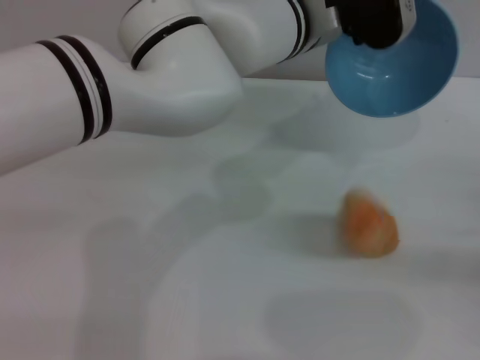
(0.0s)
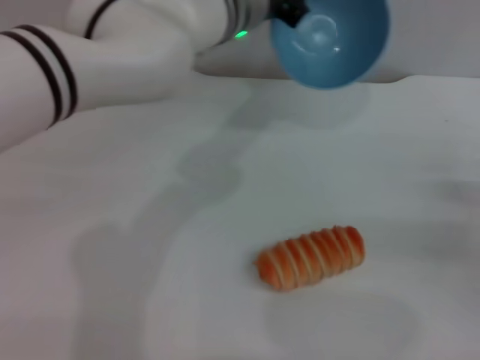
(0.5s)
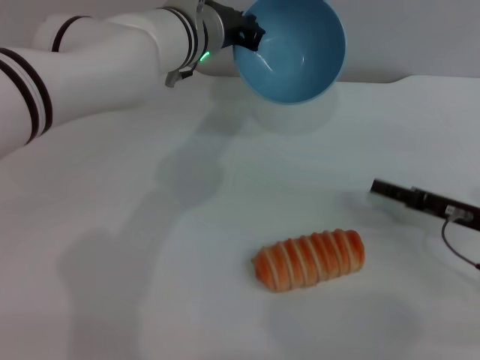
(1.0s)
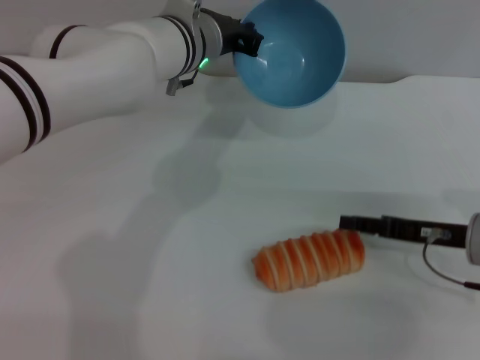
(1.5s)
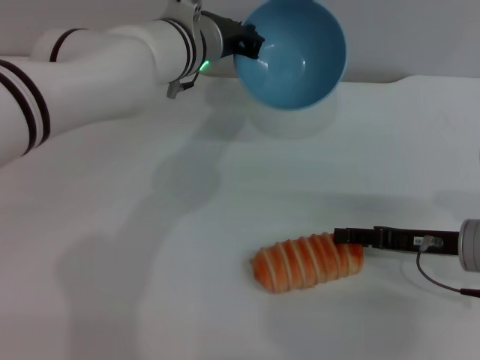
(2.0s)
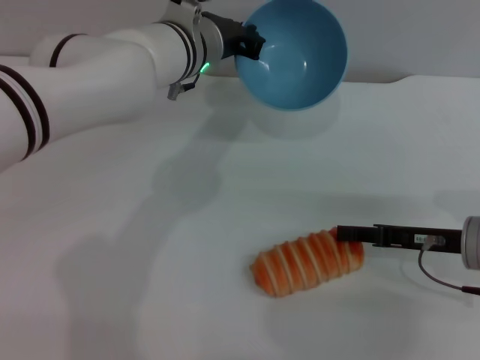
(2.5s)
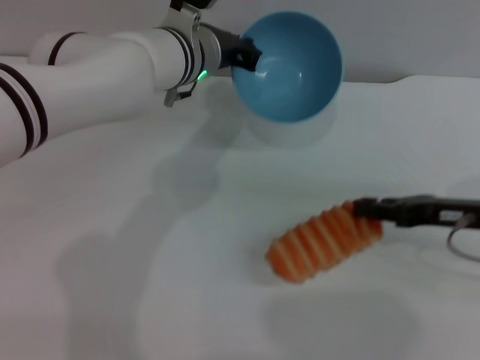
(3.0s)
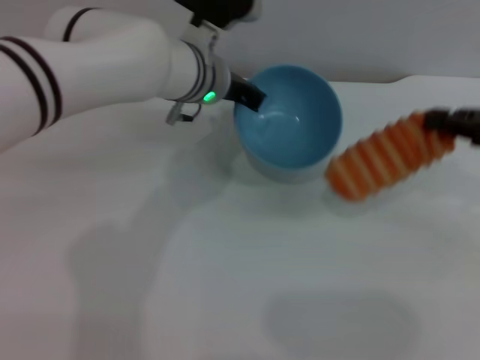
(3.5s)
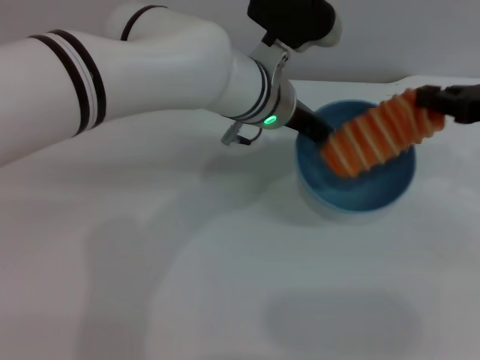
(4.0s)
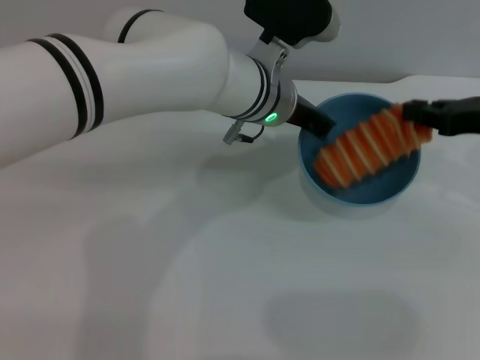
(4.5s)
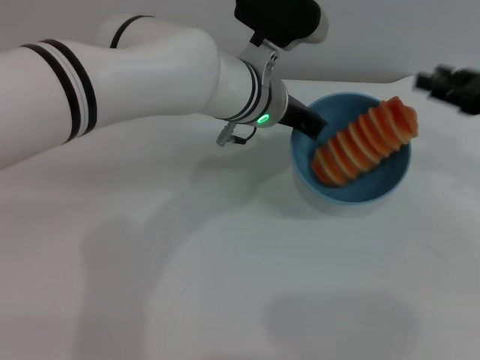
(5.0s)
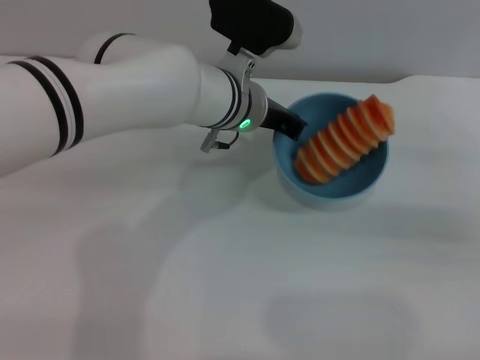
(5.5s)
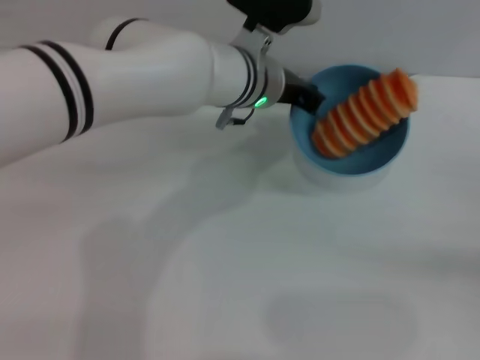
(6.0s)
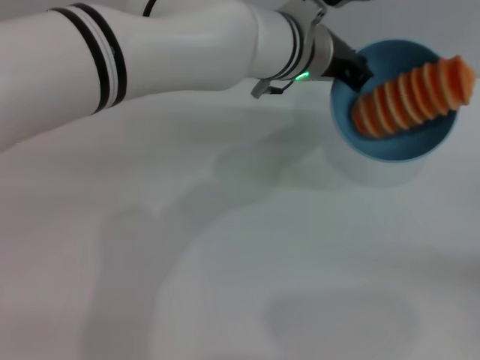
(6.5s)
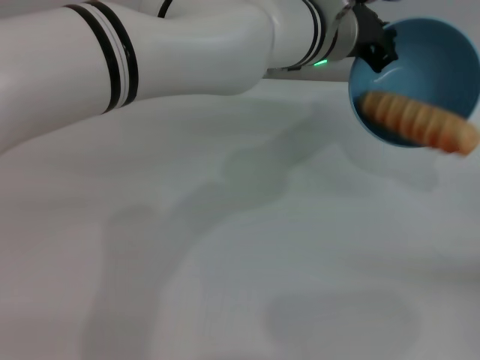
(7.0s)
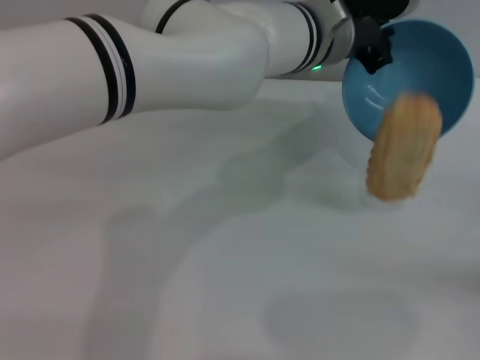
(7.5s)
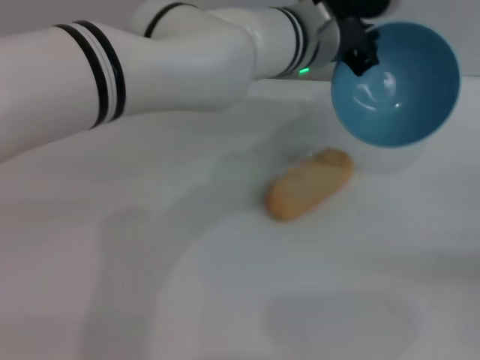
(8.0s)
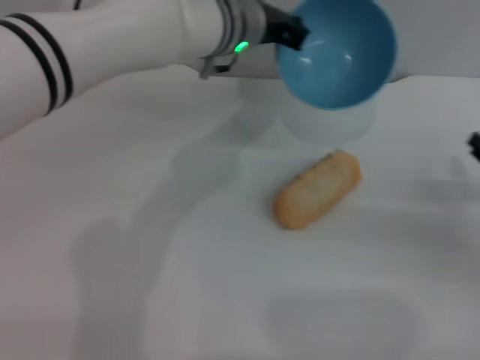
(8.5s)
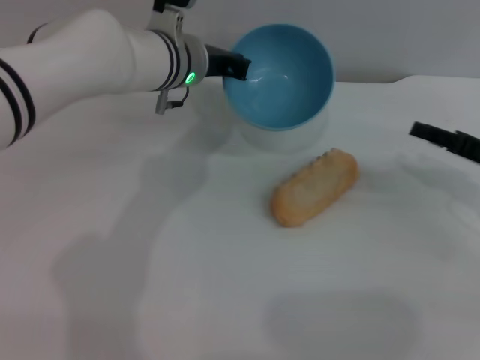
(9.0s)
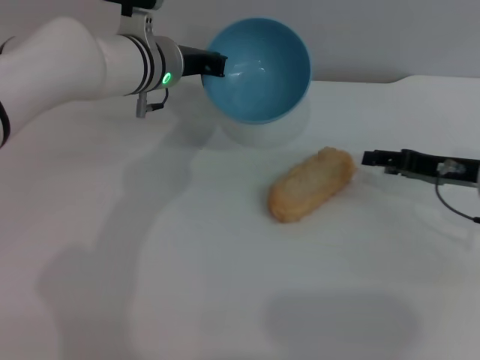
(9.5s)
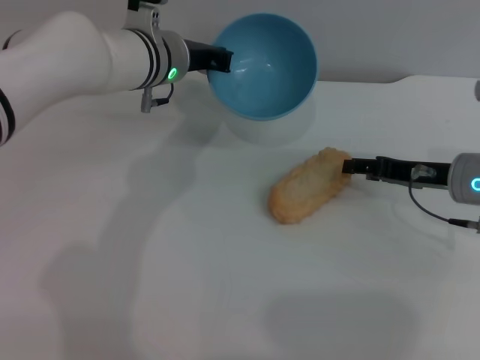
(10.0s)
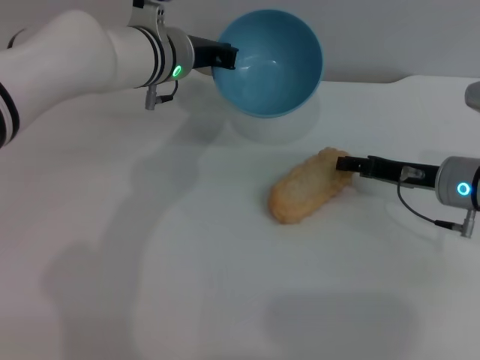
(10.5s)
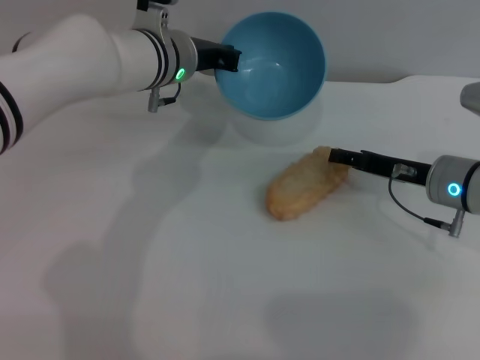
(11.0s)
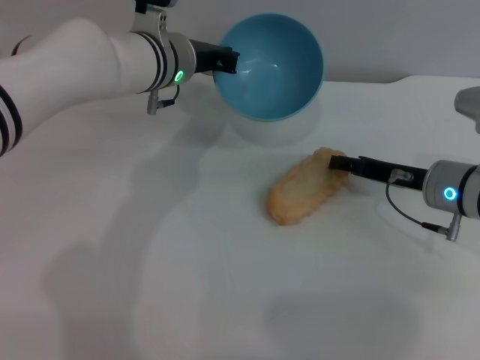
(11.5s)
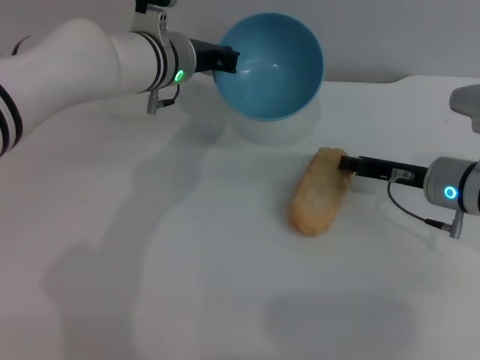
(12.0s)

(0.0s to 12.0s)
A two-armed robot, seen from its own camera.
Task of the whole recording: put the bread into the blue bowl and pour it out repeatedly.
Step, 0.5s - 3.5s: Pick up the bread with the right gripper.
Step, 4.0s - 5.0s: Place the bread into the bowl.
Step, 5.5s - 7.5s: Pour the bread out of the bowl.
0.0s - 2.0s: The left gripper shifts about 10 cm to the left and downward; the right gripper shifts about 15 cm to the left.
2.0s - 4.0s: The left gripper is displaced to the right by some 5 cm. Meanwhile the right gripper moves upward, forward and to the right, some 15 cm, and closes its fingers.
4.0s - 6.0s: The right gripper is displaced downward, backward and to the right by about 20 cm, and opens up.
6.0s - 8.0s: The left gripper shifts by about 5 cm.
8.0s - 10.0s: The left gripper is displaced to the left by about 15 cm, while the right gripper travels to the left and forward by some 15 cm.
10.0s - 12.0s: The grippers move only a little.

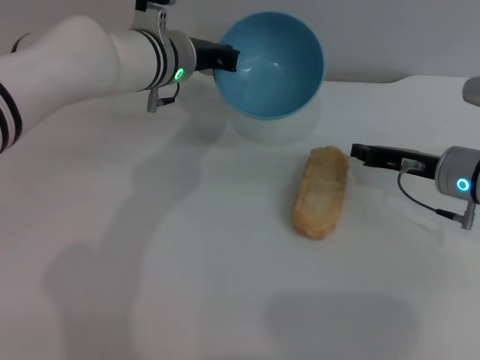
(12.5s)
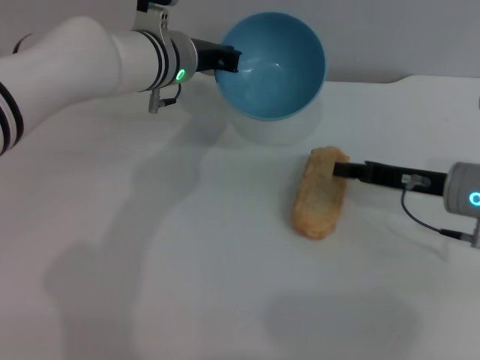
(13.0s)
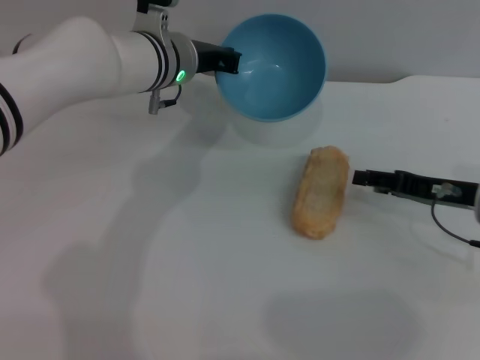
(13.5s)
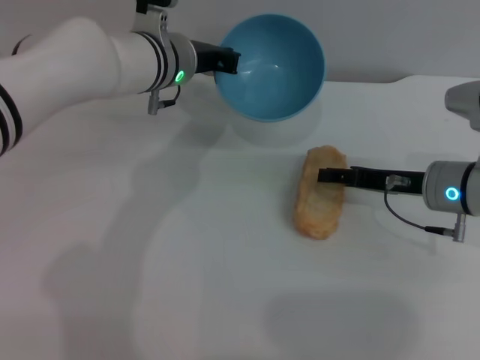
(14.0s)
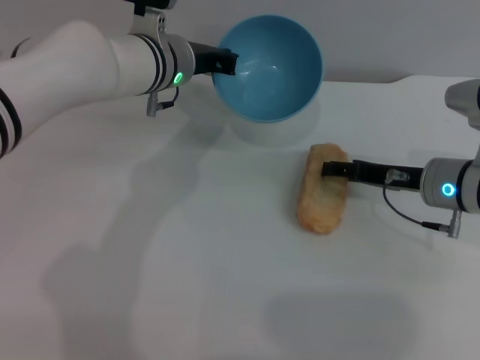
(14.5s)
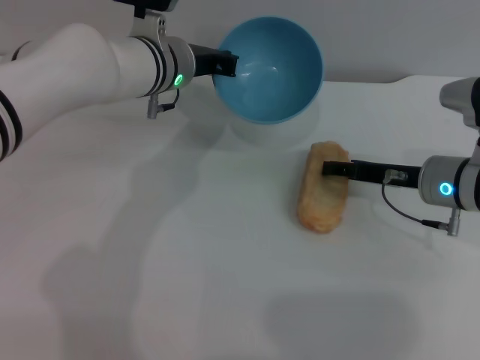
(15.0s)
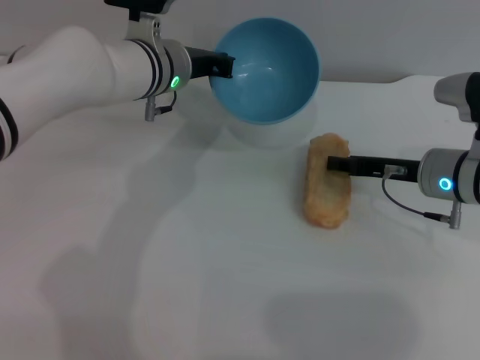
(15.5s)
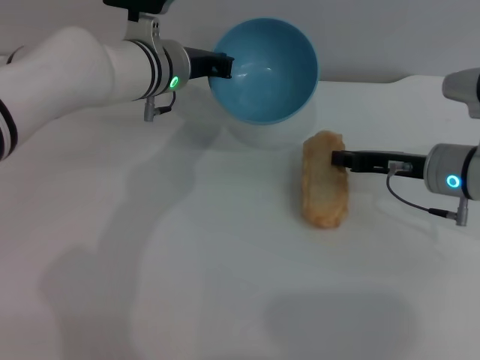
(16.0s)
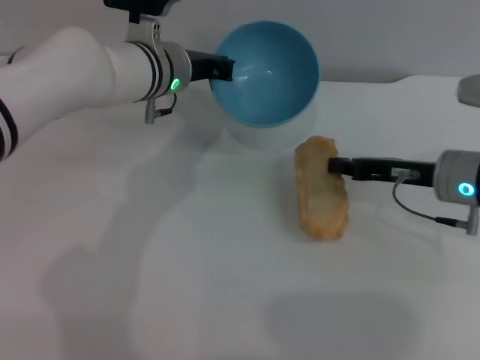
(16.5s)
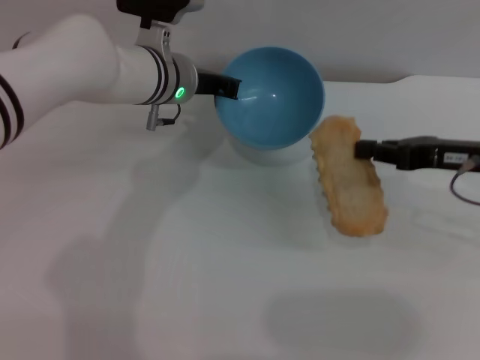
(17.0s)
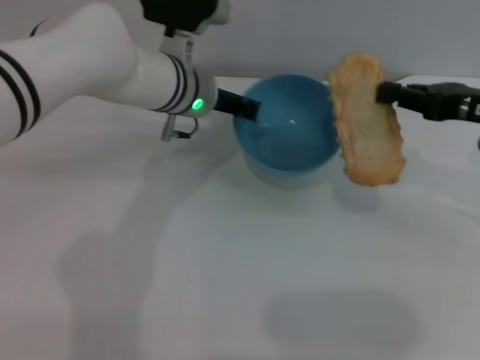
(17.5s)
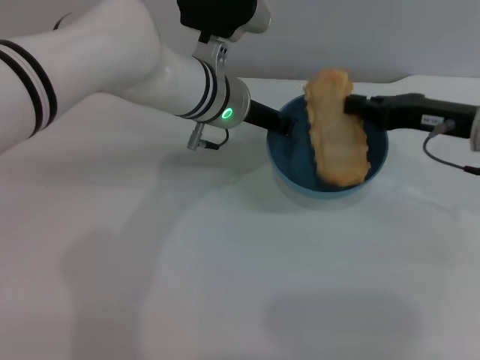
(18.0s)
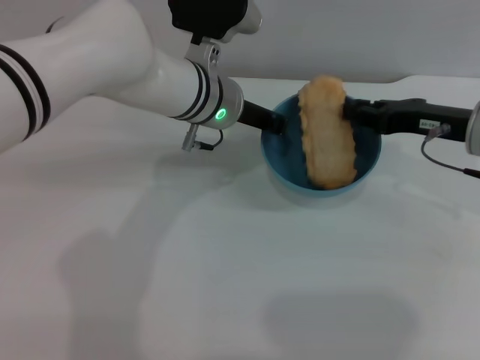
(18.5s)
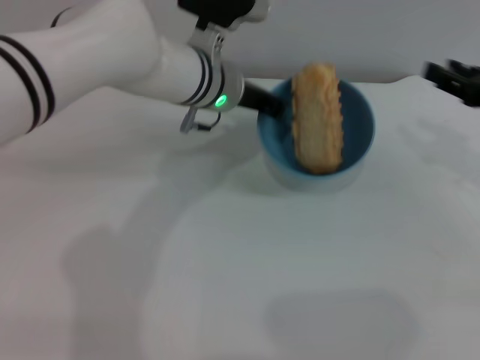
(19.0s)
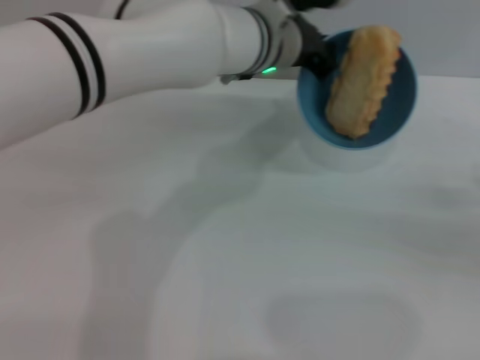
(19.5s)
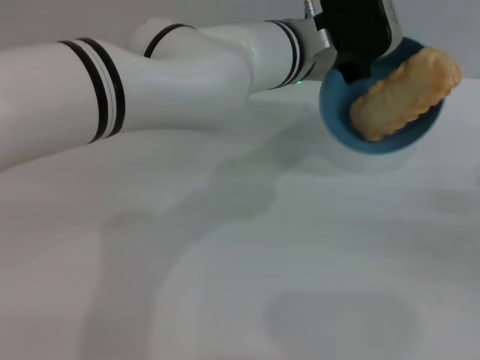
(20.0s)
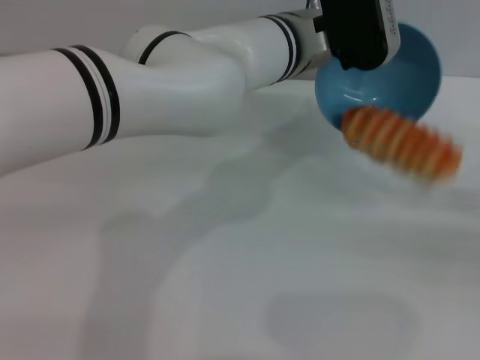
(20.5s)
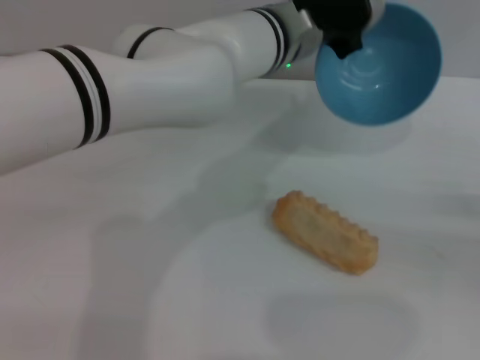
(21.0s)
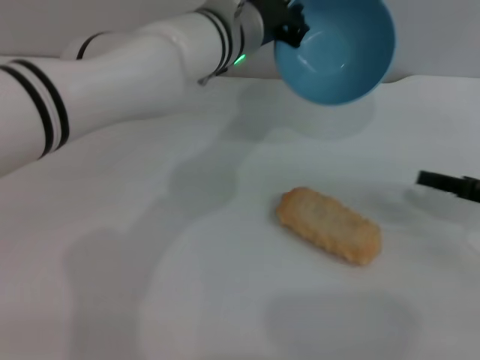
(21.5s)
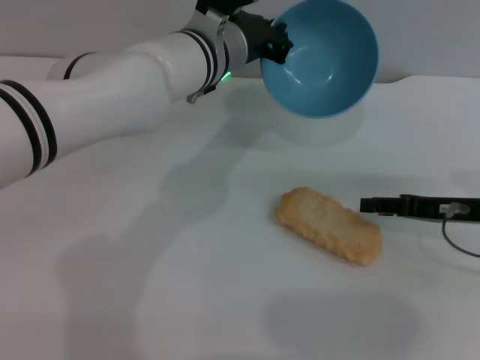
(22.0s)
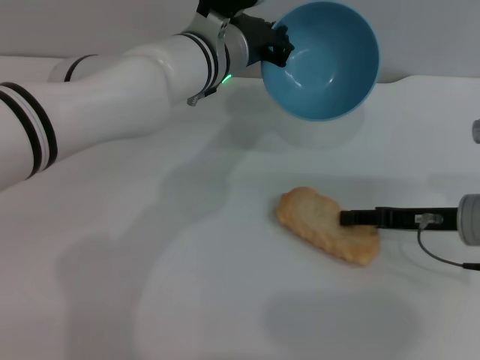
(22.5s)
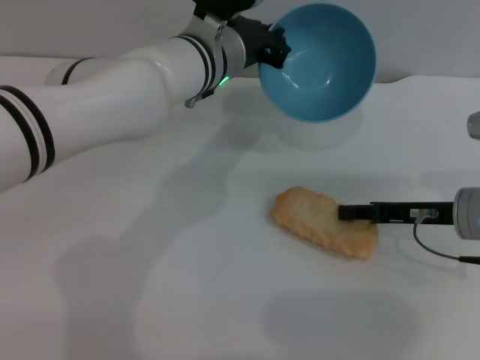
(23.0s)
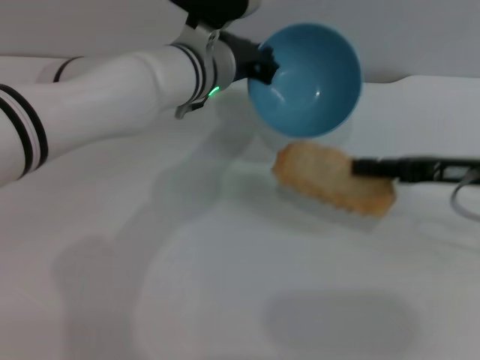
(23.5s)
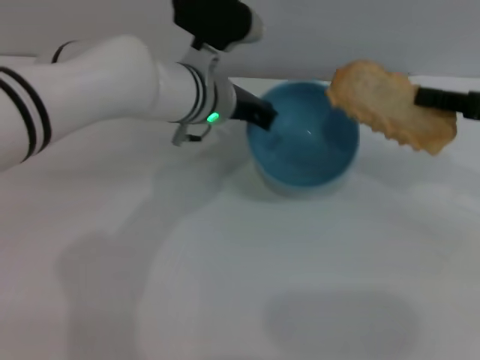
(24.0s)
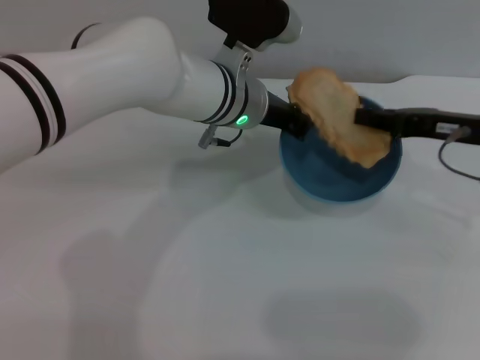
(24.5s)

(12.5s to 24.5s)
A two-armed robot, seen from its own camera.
Task of the whole recording: put the bread into the blue bowl and pour it out repeatedly.
Step, 12.5s - 16.5s: Pick up the bread with the right gripper.
Step, 17.0s - 18.5s: Place the bread into the bowl.
Step, 19.0s - 20.5s: Pour the bread out of the bowl.
Step, 21.0s - 23.5s: Pick up the bread with the right gripper.
12.5s - 14.5s: The right gripper opens up.
14.5s - 16.5s: The right gripper closes.
16.5s - 18.5s: The left gripper moves roughly 5 cm.
18.5s - 20.5s: The right gripper moves to the right and backward, approximately 20 cm, and opens its fingers, while the left gripper heads to the right, covering approximately 10 cm.
20.5s - 22.5s: The right gripper is displaced to the left and forward by some 15 cm, while the left gripper travels to the left by roughly 5 cm.
22.5s - 24.5s: The right gripper heads upward, covering about 10 cm, and closes its fingers.

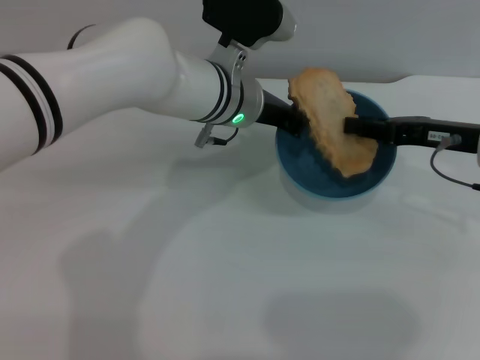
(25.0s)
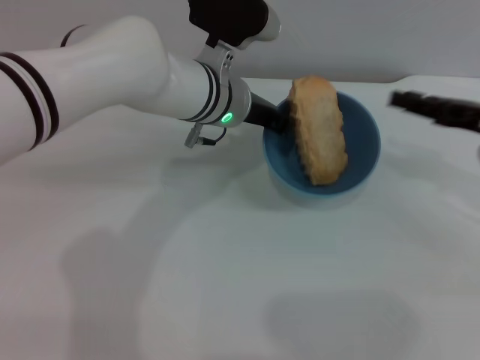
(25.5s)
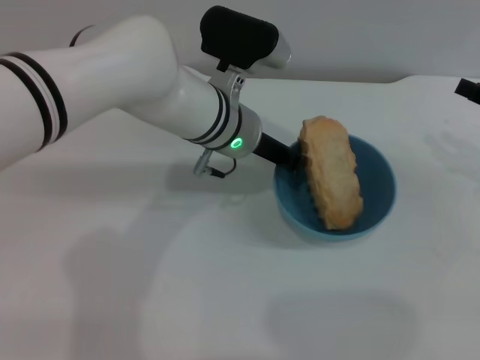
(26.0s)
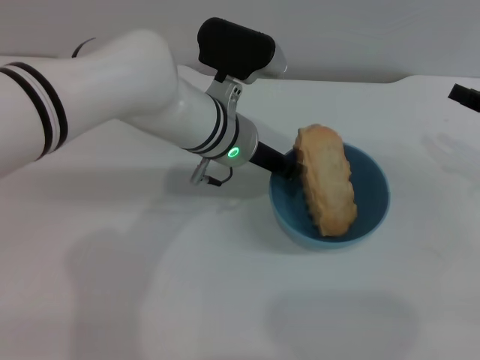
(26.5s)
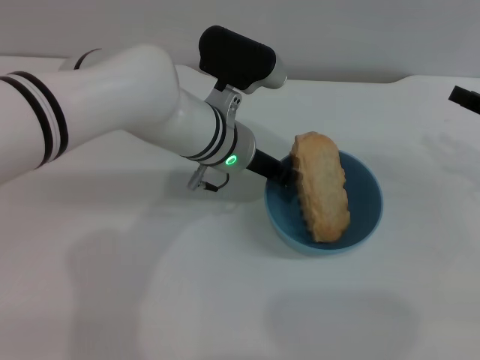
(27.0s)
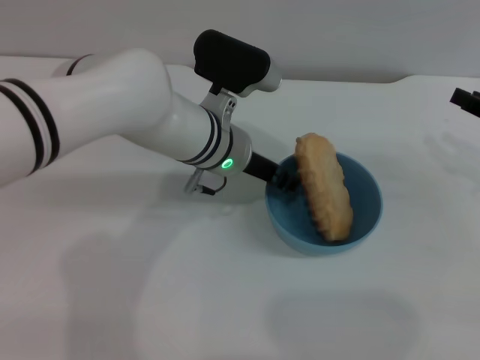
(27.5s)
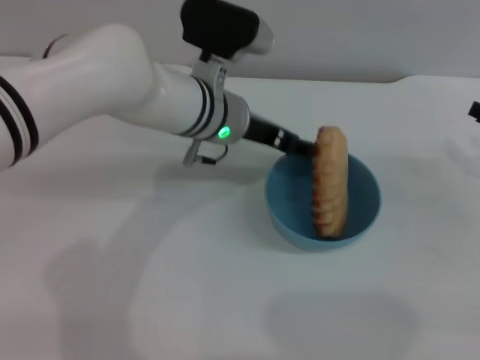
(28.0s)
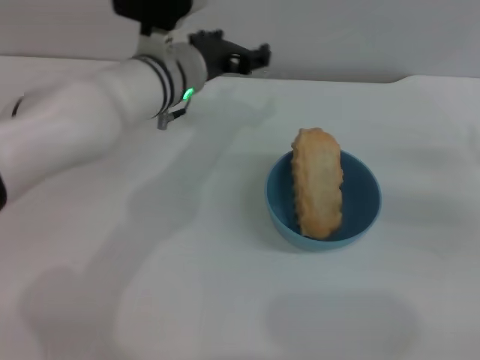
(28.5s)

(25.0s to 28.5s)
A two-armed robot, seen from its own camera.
Task of the whole recording: put the bread into the blue bowl and pour it out repeatedly.
Step, 26.0s - 28.0s: Place the bowl on the table.
25.0s - 27.0s: The right gripper heads to the right, covering about 10 cm, and opens.
27.0s - 28.5s: The left gripper shifts by some 5 cm, and opens up.
